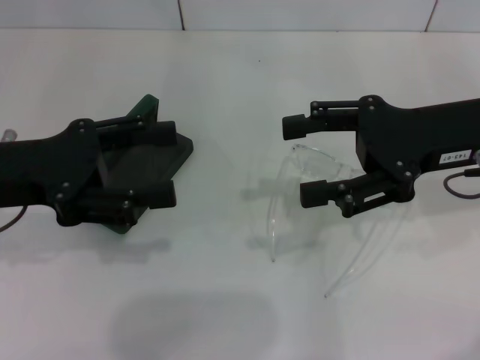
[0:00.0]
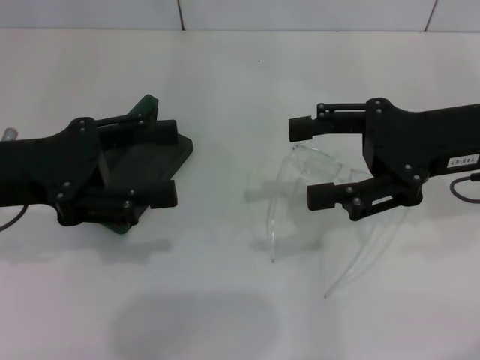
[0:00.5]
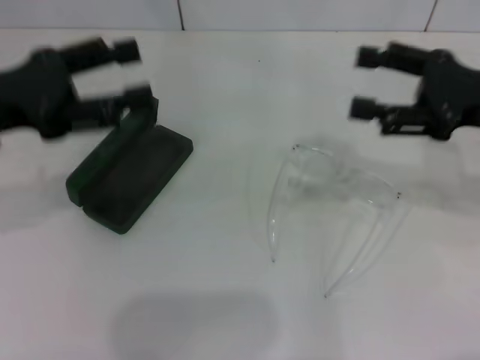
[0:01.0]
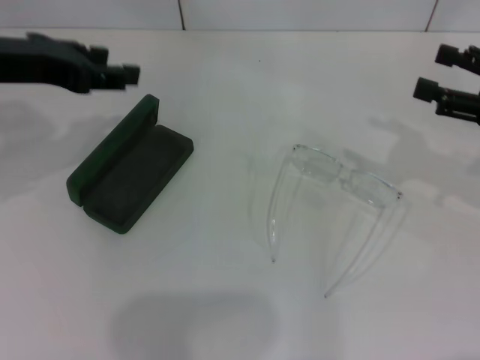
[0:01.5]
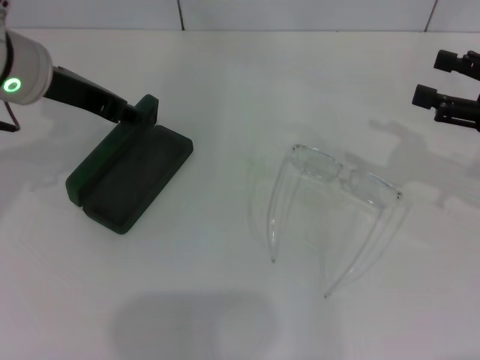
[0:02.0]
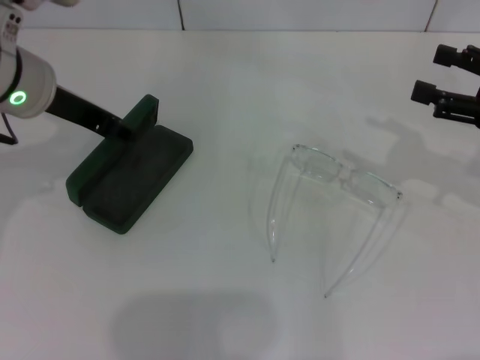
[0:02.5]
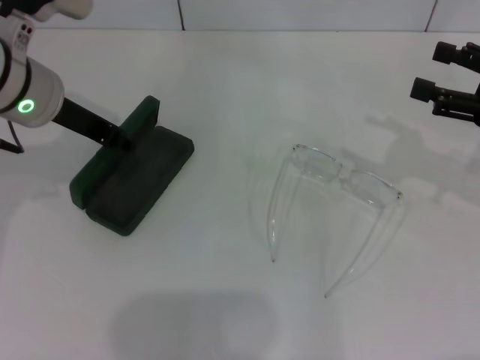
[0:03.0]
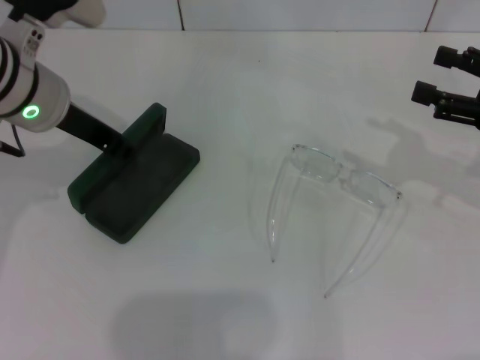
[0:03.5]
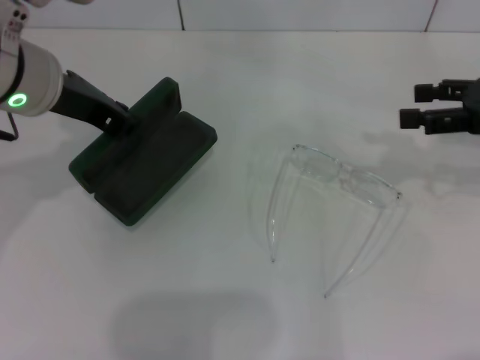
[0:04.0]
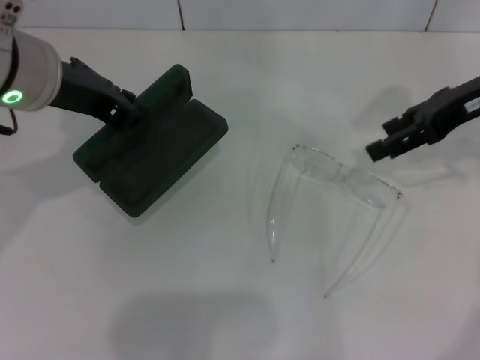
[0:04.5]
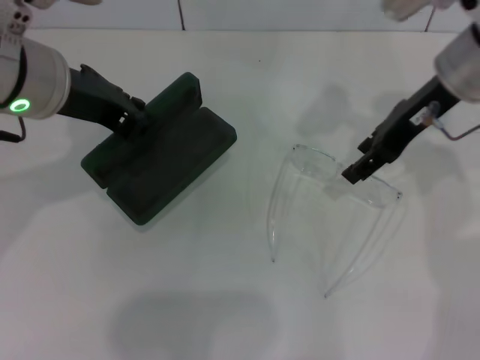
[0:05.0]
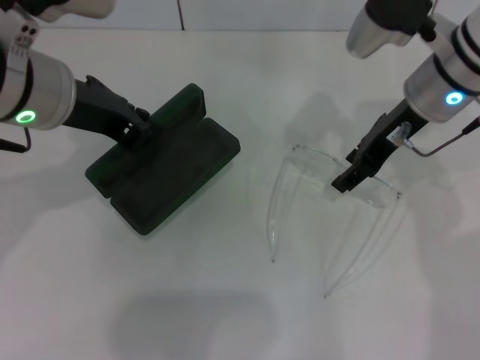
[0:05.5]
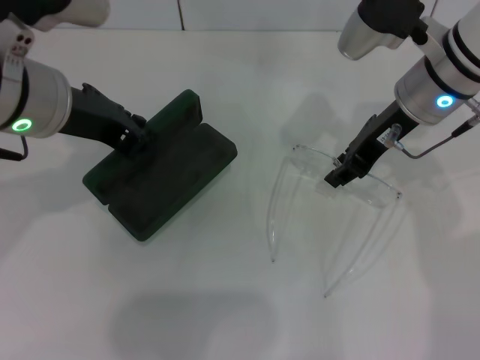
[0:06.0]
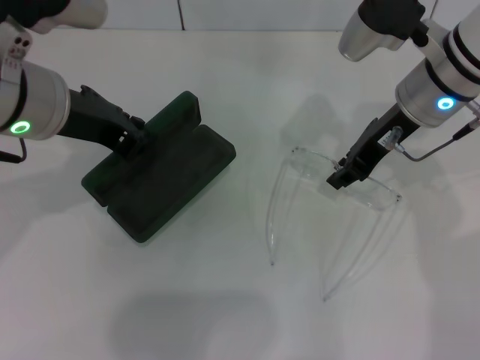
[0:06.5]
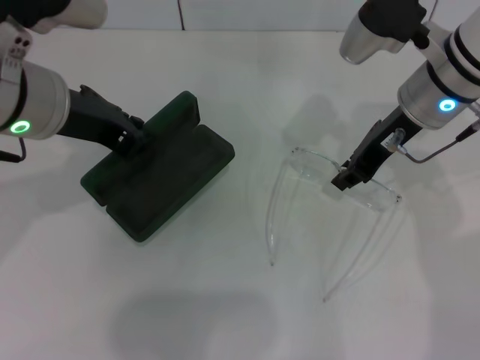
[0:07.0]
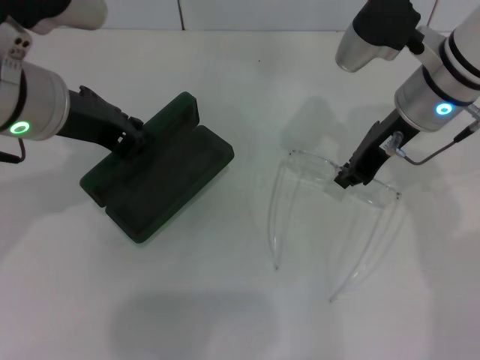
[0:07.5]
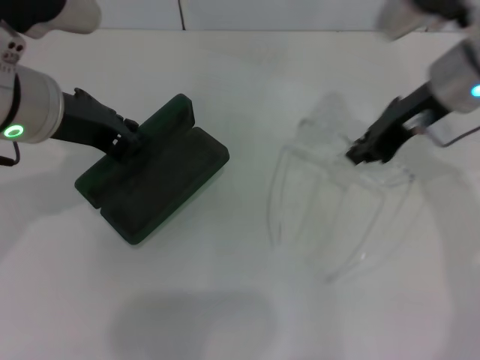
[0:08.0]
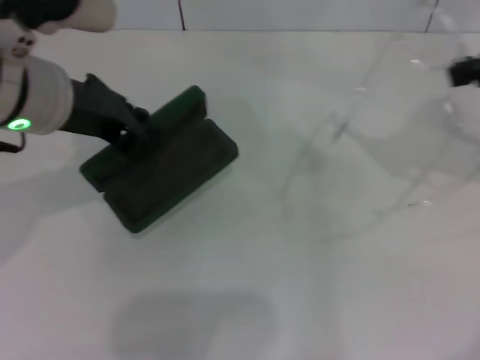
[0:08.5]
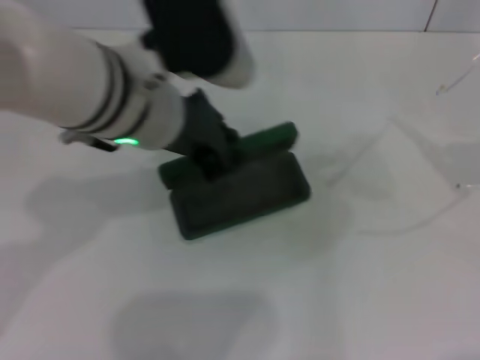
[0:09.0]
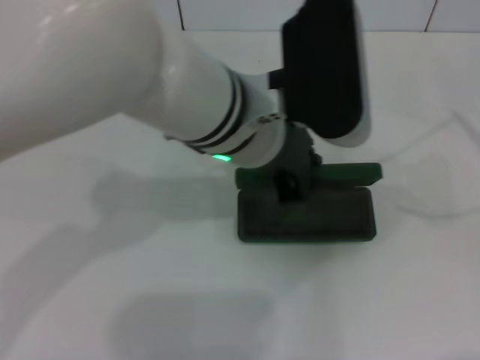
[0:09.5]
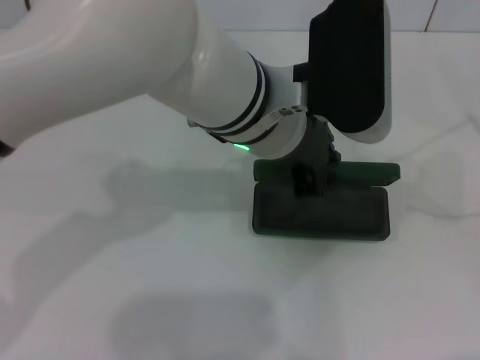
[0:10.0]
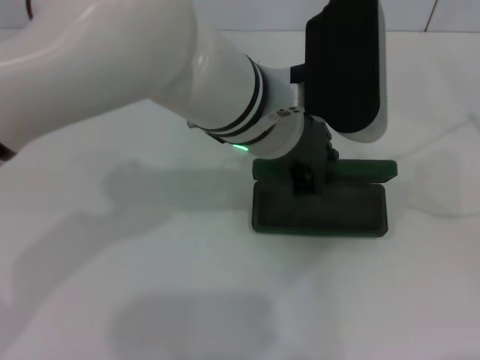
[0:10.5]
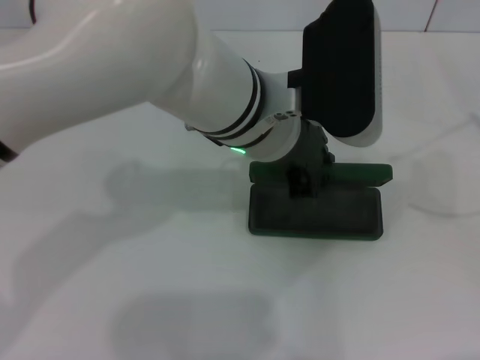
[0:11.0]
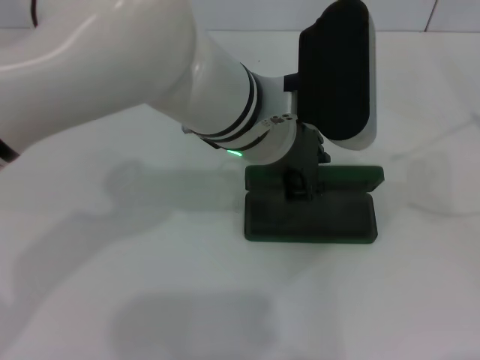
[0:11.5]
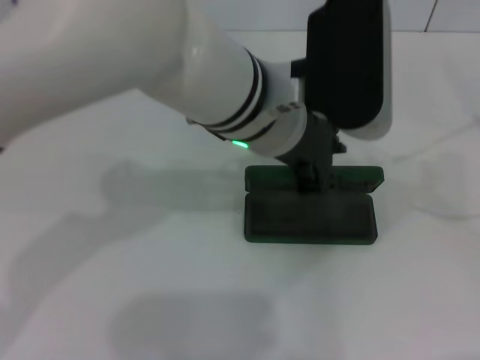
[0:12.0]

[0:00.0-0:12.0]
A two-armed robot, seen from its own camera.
Step, 0.0 to 3.5 s: Grab the glasses case with your left hand.
Step, 4.0 to 7.5 s: Grab the eyeglass frame with your right hand.
Step, 8.0 to 11.5 s: Place the glasses case in the center of the table with your left hand.
0.0 to 2.0 s: The left gripper goes about 10 cm forward and to the right; the right gripper moves to the right, roughly 10 cm.
2.0 to 4.0 s: The left gripper closes its fingers.
4.0 to 6.0 s: The right gripper travels to the left by some 15 cm, and closes.
6.0 to 8.0 s: The right gripper closes.
8.0 to 10.0 s: The left gripper heads to the right, covering approximately 20 cm, while the right gripper heads to the right and backward, covering roughly 30 cm.
10.0 to 12.0 s: There are only small adjustments of the grippers.

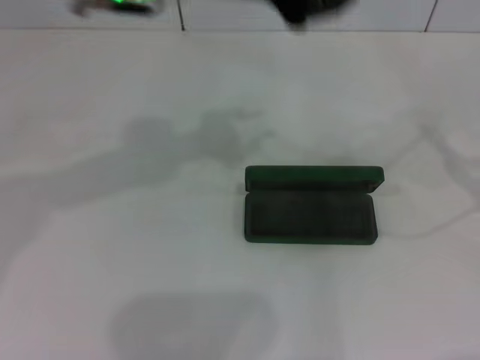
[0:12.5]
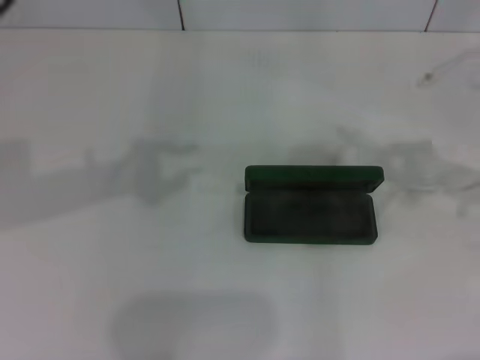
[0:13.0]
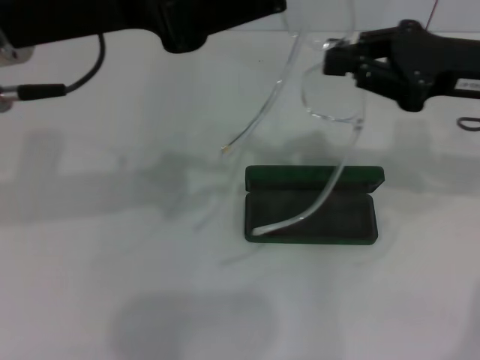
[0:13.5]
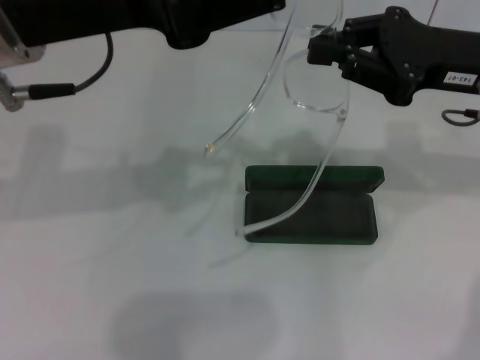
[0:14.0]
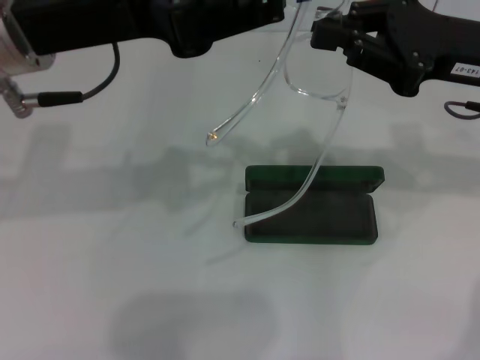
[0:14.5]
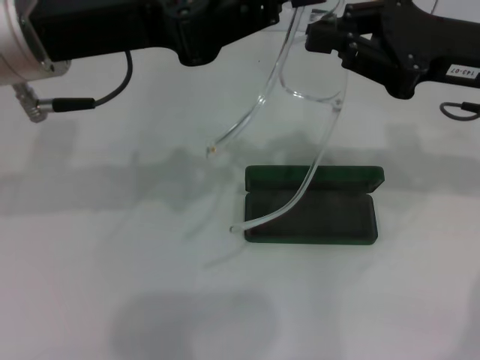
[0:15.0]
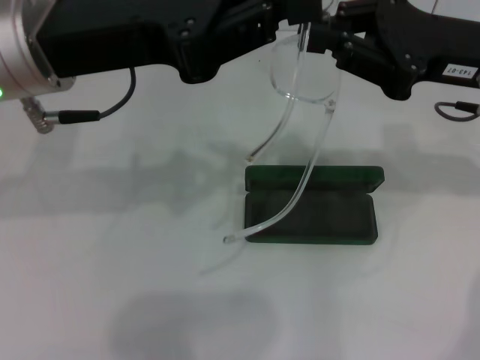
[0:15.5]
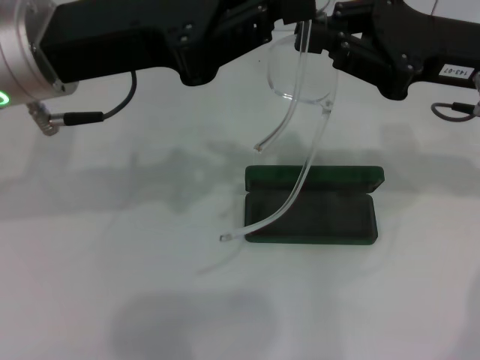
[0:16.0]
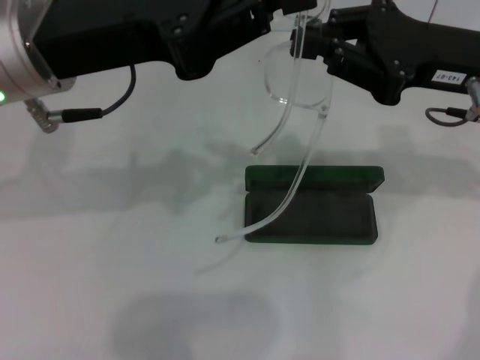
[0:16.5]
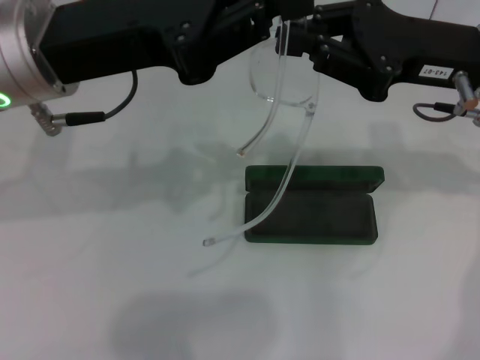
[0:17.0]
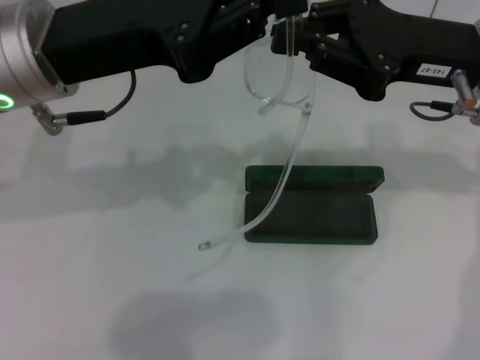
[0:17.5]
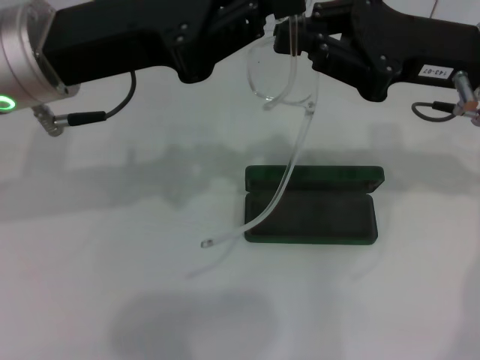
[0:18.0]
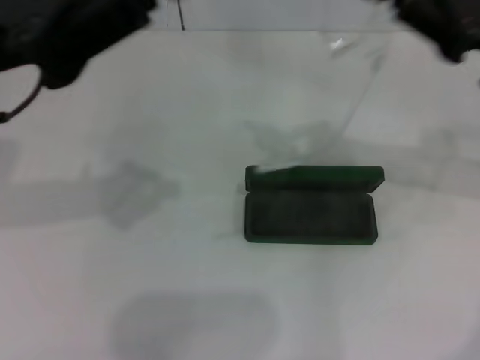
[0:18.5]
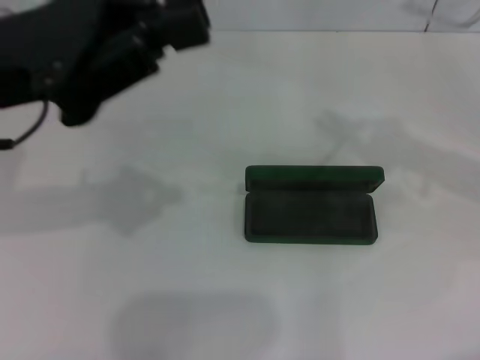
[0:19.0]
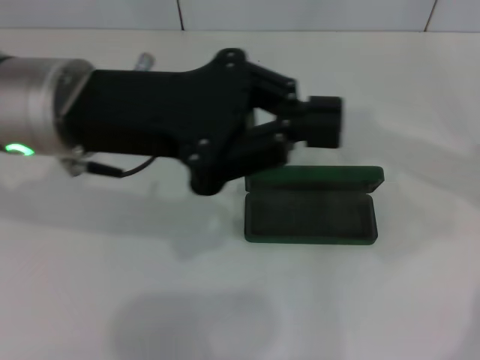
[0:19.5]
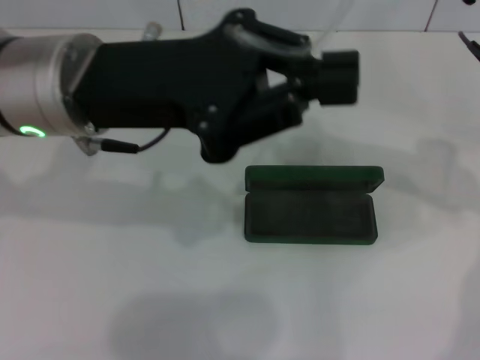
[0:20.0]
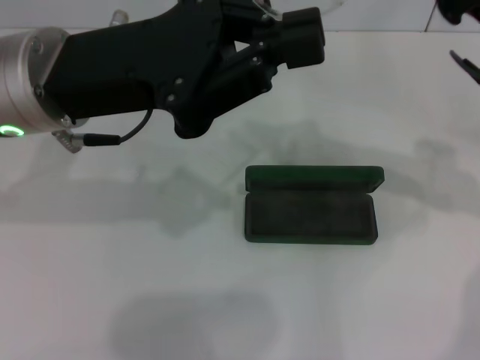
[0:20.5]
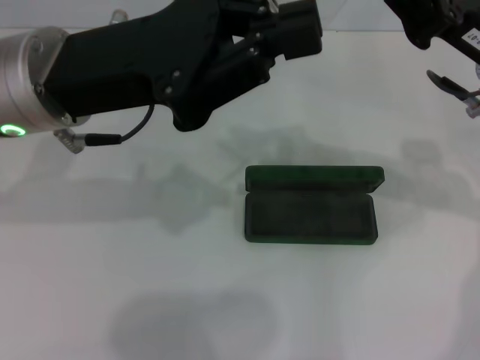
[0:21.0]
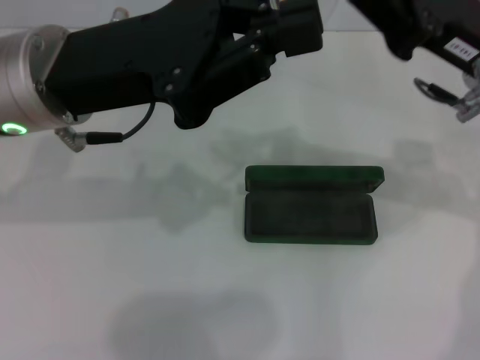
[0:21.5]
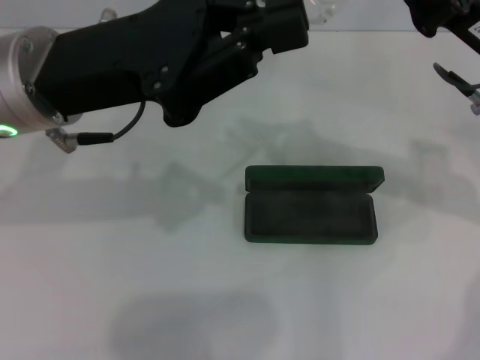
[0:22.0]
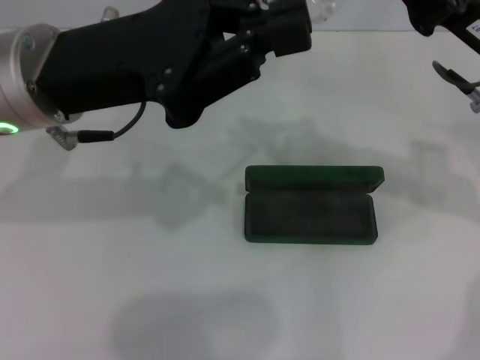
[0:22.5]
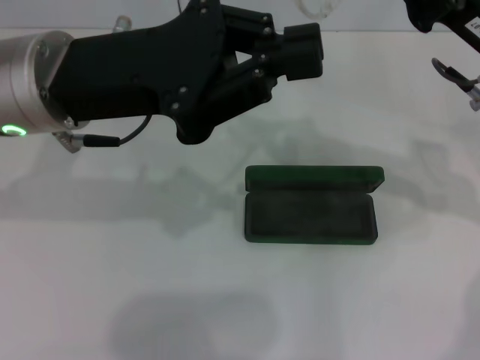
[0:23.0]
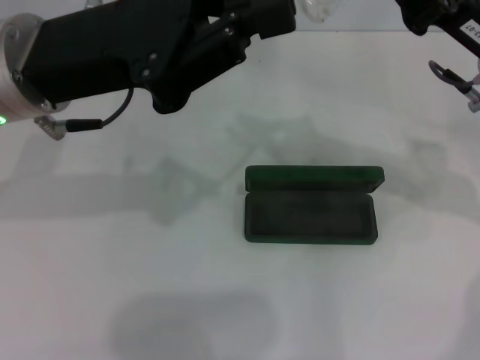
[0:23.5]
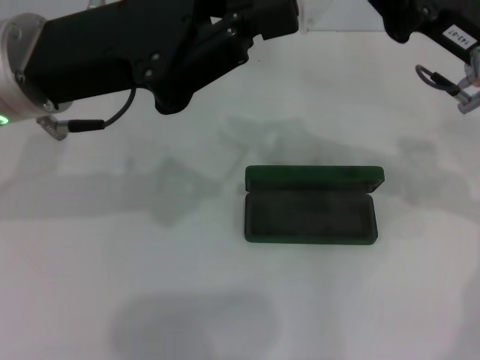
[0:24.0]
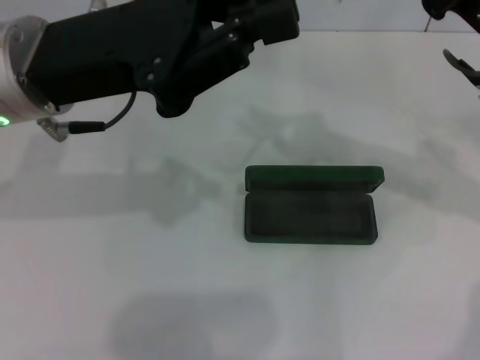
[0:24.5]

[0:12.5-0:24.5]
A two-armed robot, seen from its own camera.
12.5 to 14.5 s: The left gripper goes approximately 10 cm to the left and downward; the right gripper travels to the left and forward by about 25 cm.
14.5 to 16.5 s: The grippers stay close to where they were, moving slightly.
16.5 to 18.5 s: The left gripper changes place by approximately 5 cm.
18.5 to 20.5 s: The left gripper is displaced to the right by some 5 cm.
20.5 to 22.5 s: The grippers make only small movements.
22.5 to 24.5 s: The two grippers keep their place.

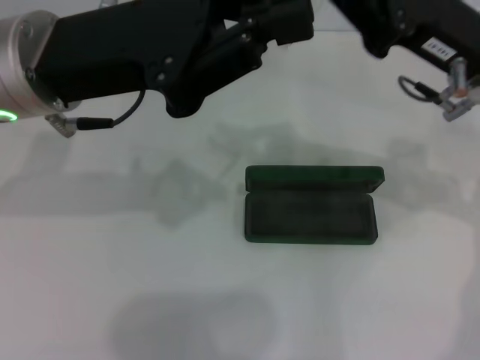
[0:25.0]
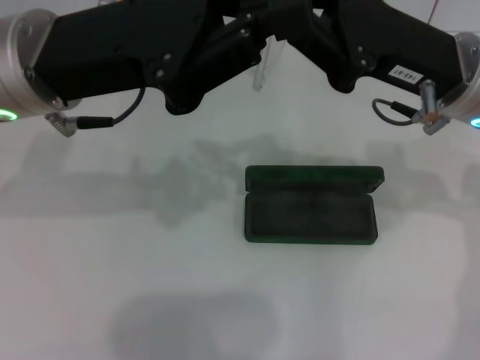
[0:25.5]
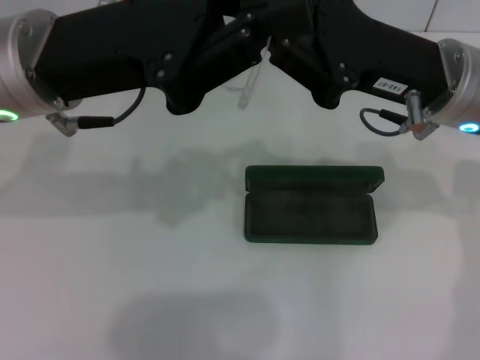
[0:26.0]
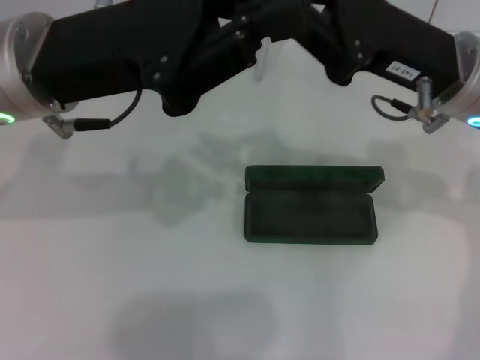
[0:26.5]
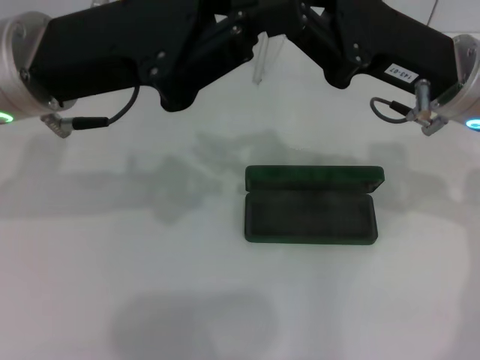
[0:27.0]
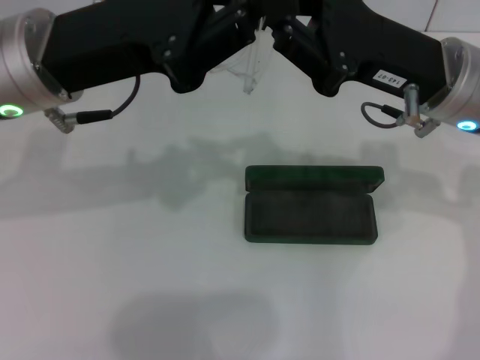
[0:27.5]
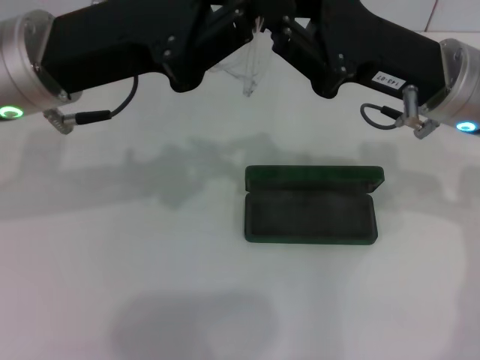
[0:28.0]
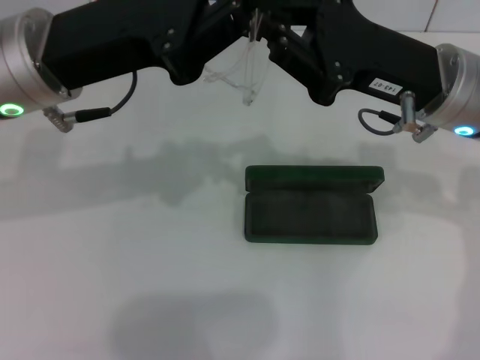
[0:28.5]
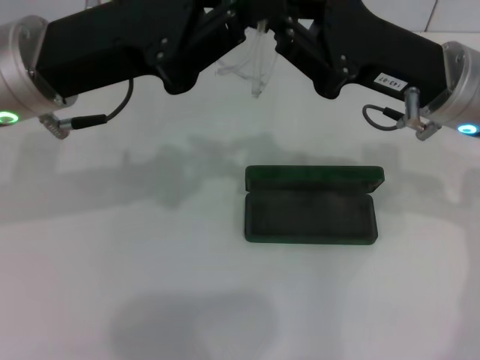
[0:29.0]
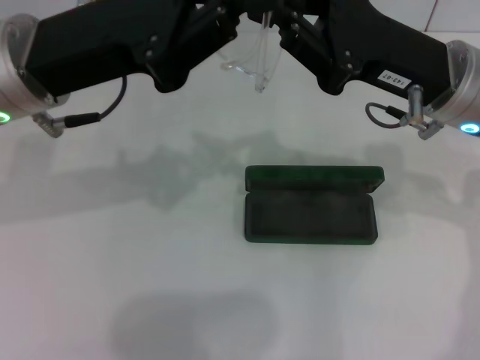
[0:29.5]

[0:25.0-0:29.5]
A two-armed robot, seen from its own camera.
25.0 to 29.5 s: The grippers make only small movements.
